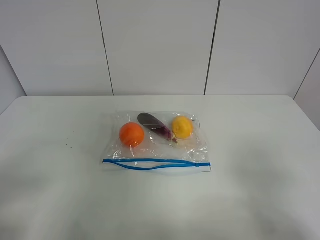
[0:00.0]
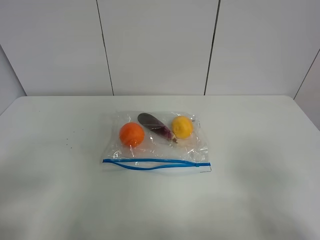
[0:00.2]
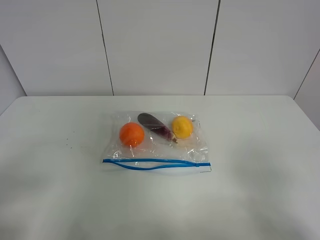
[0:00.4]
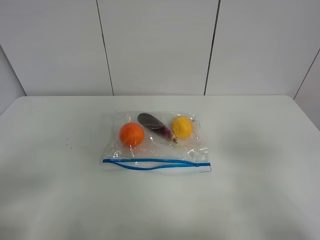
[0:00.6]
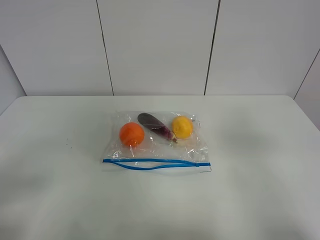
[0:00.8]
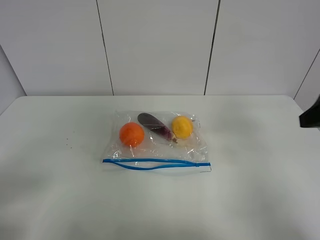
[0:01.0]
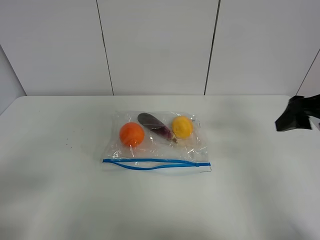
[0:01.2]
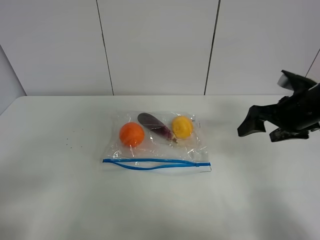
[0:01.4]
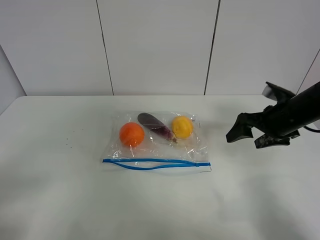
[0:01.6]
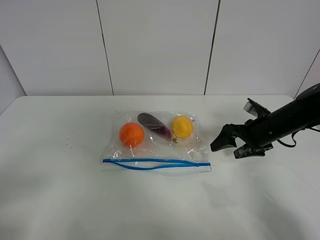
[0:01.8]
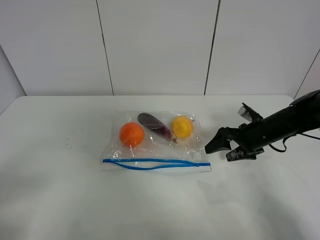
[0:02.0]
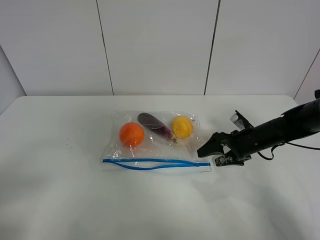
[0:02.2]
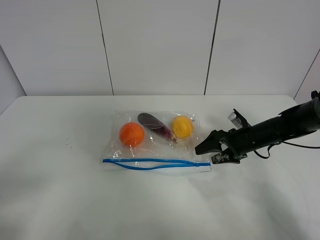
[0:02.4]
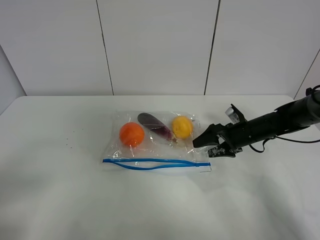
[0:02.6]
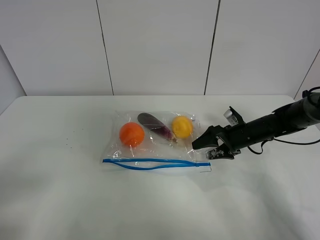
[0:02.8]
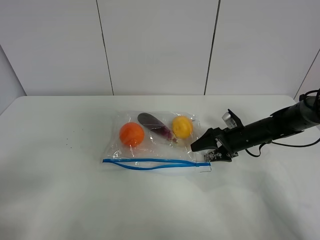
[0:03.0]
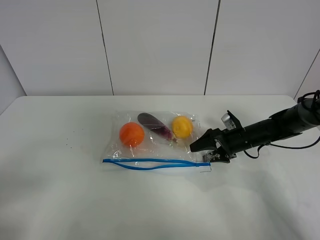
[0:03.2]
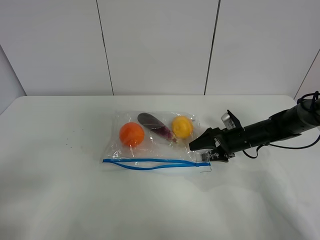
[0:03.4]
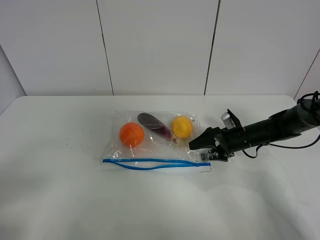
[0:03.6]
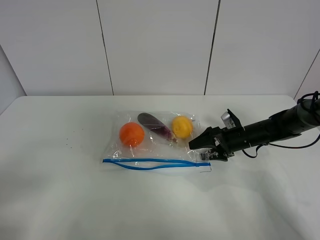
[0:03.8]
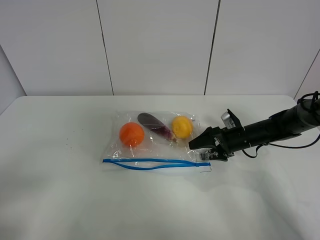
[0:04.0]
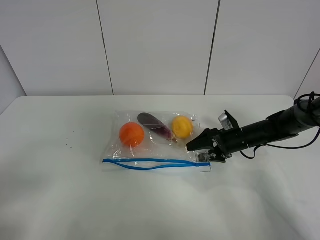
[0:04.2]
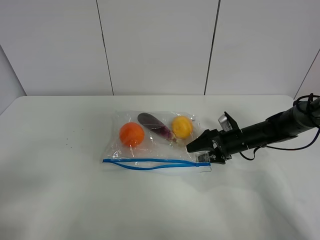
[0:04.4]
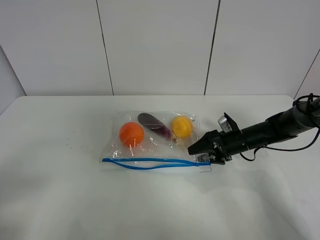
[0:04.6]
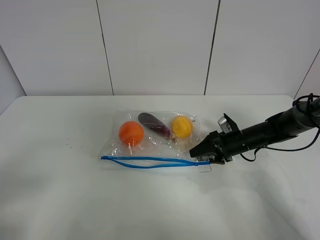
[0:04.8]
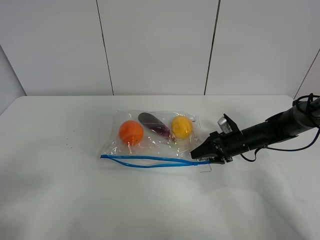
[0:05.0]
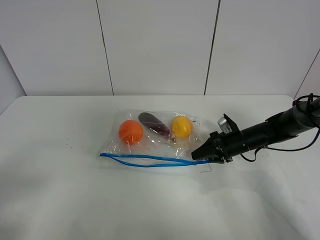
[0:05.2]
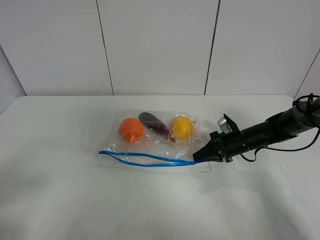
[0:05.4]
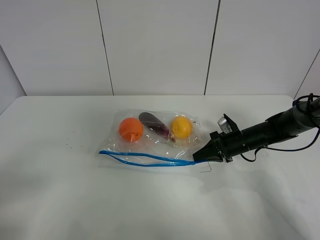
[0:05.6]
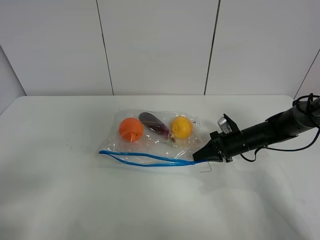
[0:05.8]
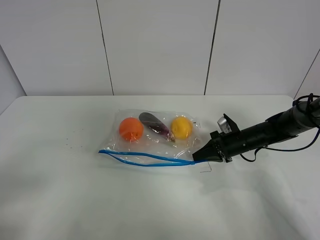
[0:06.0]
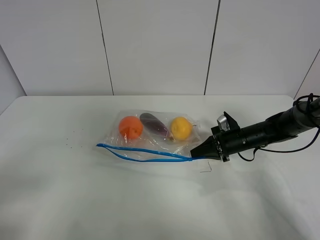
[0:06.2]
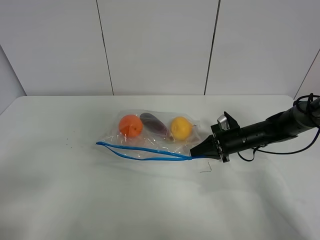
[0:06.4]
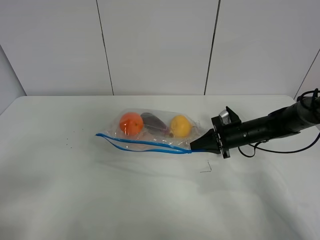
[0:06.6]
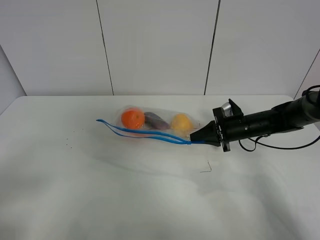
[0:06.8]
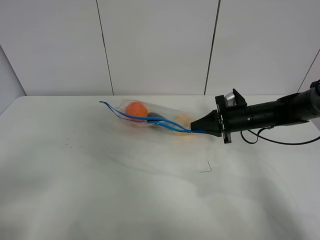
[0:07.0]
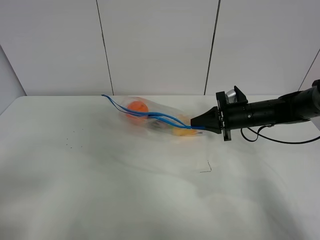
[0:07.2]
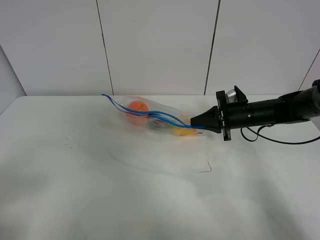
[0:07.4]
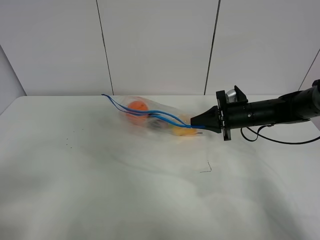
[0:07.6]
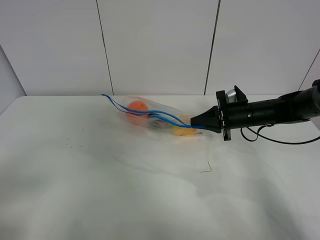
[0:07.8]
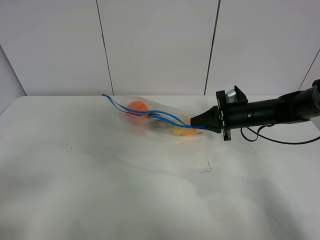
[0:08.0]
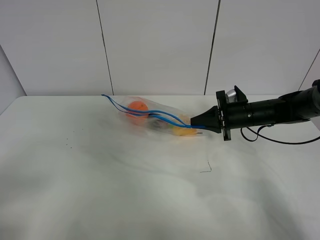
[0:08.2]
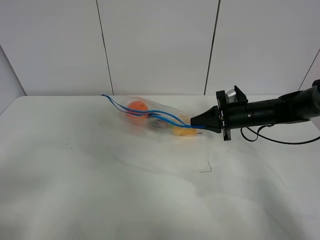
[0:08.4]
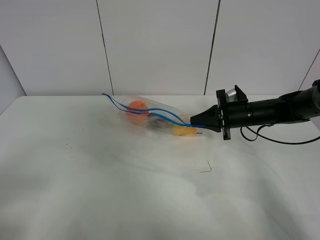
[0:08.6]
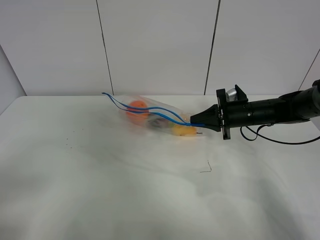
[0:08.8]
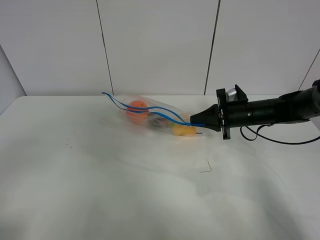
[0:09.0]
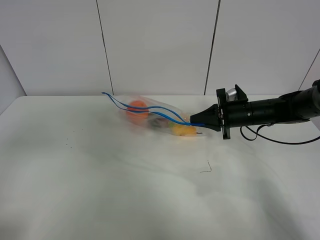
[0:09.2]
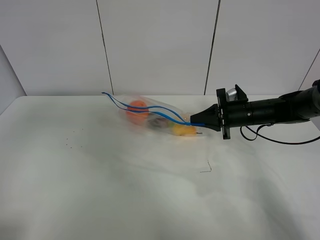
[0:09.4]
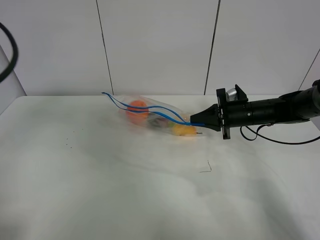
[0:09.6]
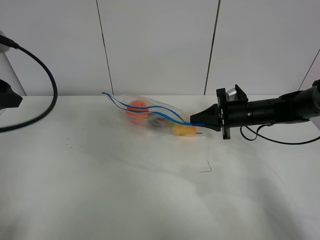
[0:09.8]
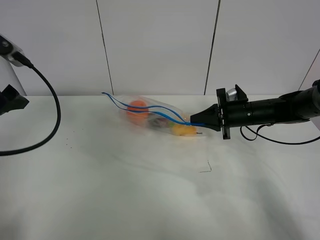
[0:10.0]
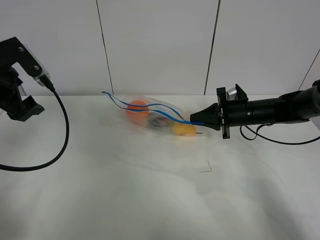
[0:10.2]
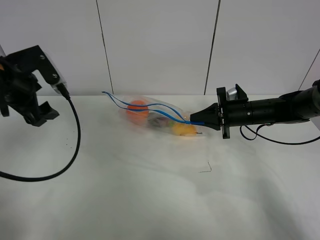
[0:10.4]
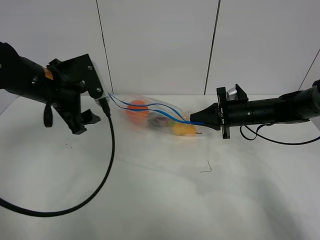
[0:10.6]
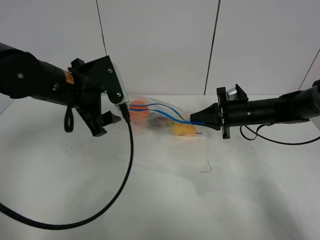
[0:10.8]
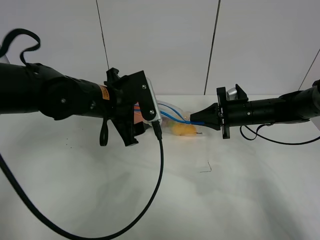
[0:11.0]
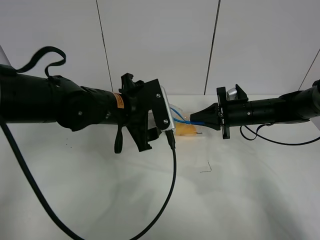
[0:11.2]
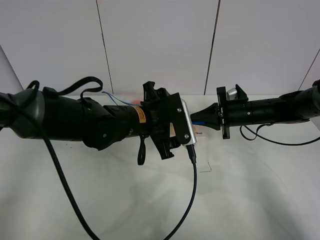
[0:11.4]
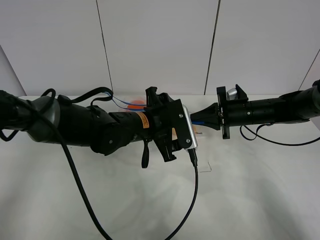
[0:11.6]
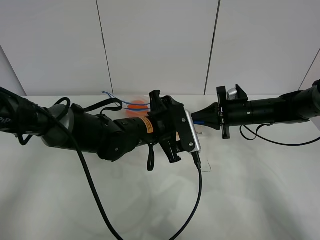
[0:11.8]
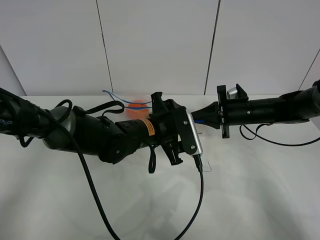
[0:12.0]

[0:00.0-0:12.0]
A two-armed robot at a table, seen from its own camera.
Step, 0:00.0 to 0:05.4: Grasp the fruit bag with right gripper.
Step, 0:05.6 to 0:07.6: Lift the fruit bag with your right gripper.
0:00.0 to 0:01.6: The right gripper travels forward by approximately 30 cm.
0:01.6 to 0:03.0: The right gripper moves downward and forward, some 15 cm.
0:03.0 to 0:04.4: Neither gripper changes place.
0:04.4 to 0:06.0: The right gripper closes its fingers.
0:06.0 to 0:07.6: The right gripper is displaced upward by roughly 10 cm.
0:07.6 to 0:09.0: The left gripper shifts approximately 5 cm upward.
0:09.0 to 0:10.4: The left gripper heads forward, covering some 30 cm.
0:10.4 to 0:12.0: The left gripper travels to the right and downward by some 25 cm.

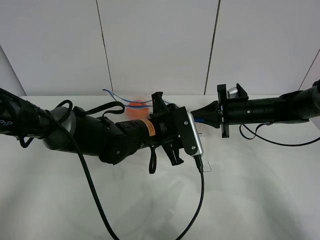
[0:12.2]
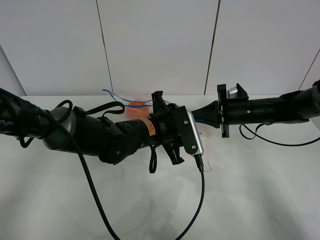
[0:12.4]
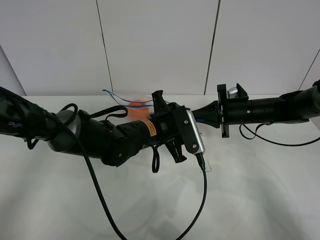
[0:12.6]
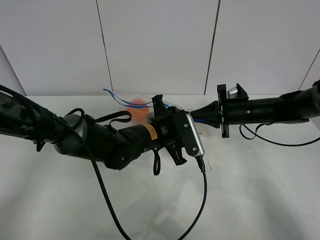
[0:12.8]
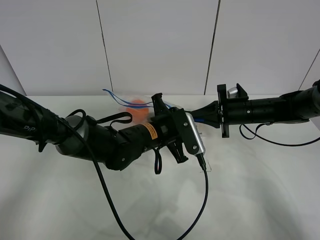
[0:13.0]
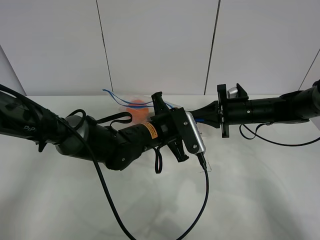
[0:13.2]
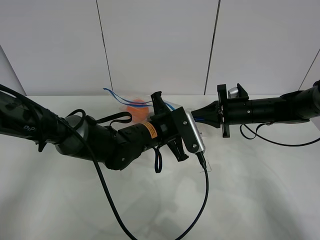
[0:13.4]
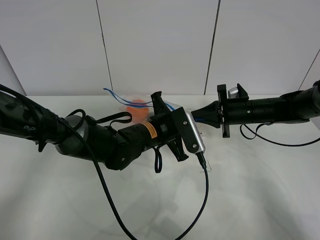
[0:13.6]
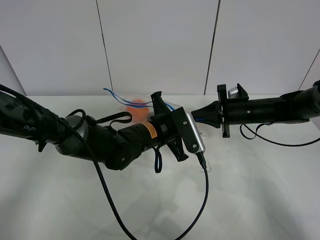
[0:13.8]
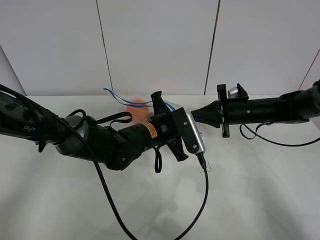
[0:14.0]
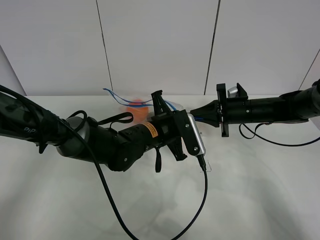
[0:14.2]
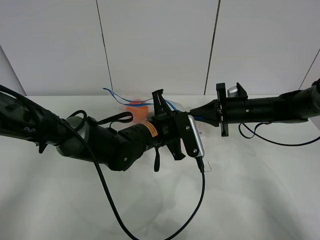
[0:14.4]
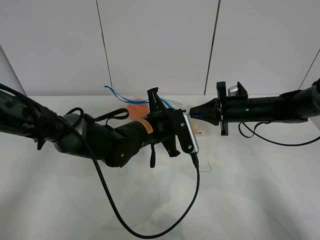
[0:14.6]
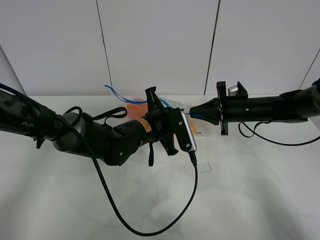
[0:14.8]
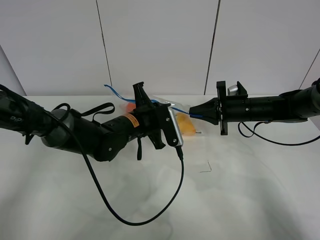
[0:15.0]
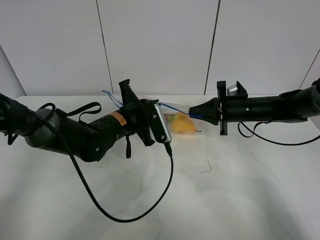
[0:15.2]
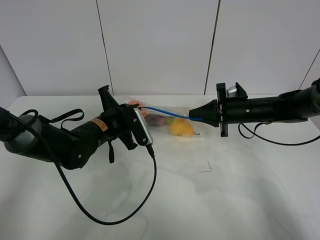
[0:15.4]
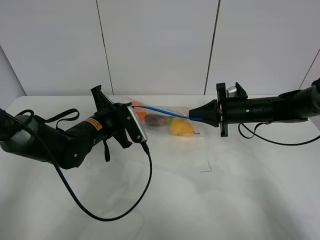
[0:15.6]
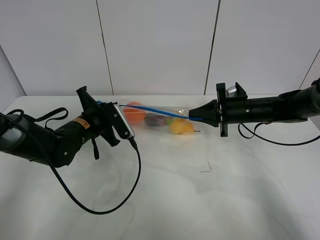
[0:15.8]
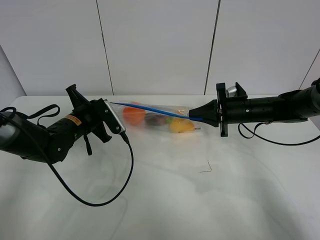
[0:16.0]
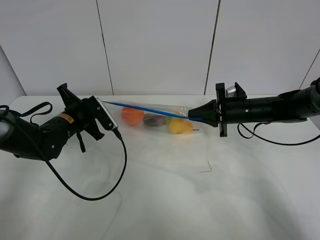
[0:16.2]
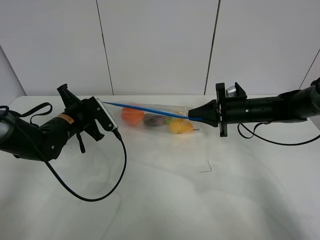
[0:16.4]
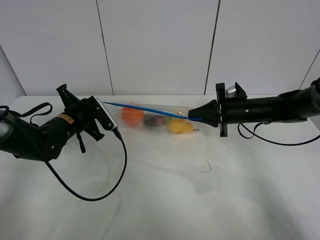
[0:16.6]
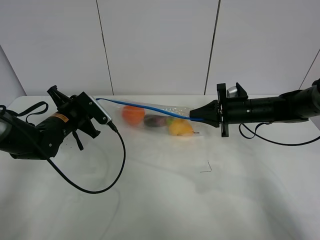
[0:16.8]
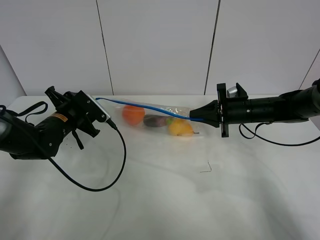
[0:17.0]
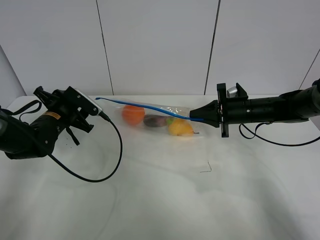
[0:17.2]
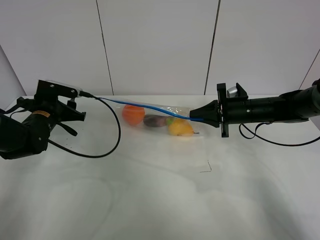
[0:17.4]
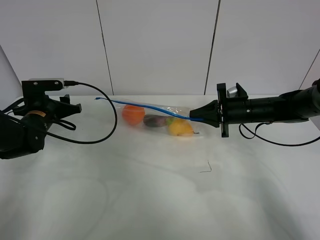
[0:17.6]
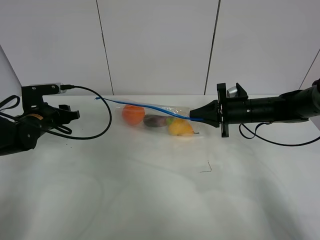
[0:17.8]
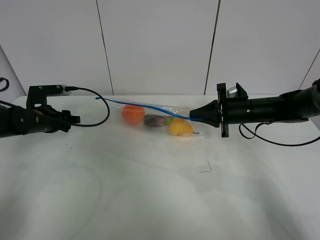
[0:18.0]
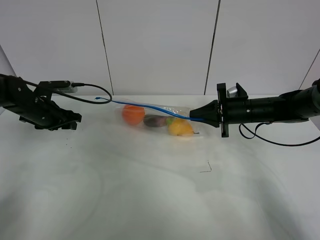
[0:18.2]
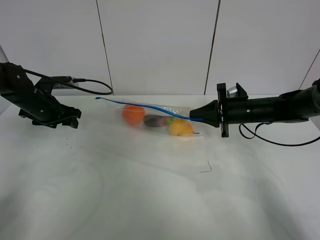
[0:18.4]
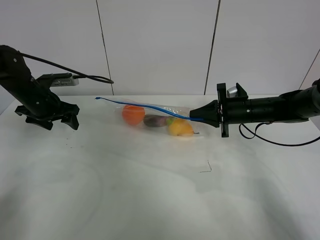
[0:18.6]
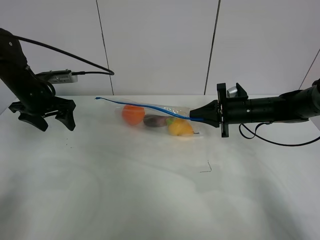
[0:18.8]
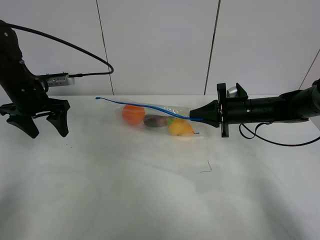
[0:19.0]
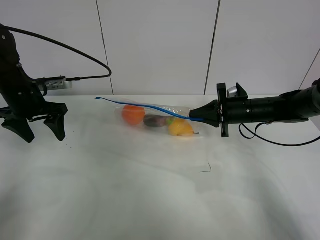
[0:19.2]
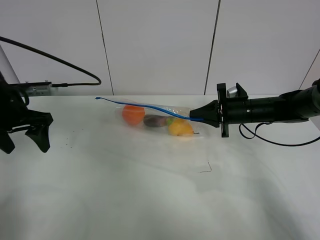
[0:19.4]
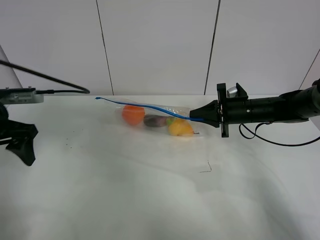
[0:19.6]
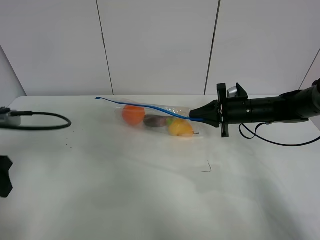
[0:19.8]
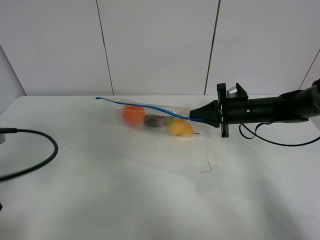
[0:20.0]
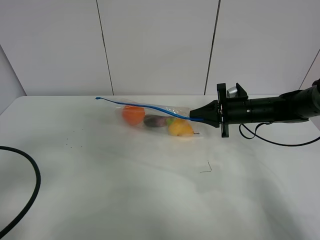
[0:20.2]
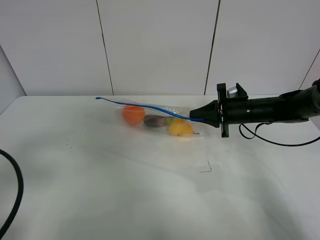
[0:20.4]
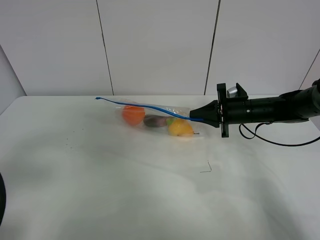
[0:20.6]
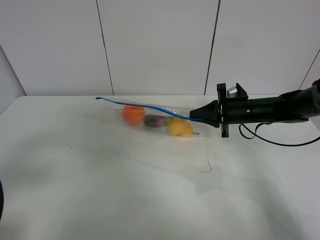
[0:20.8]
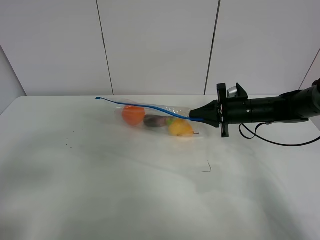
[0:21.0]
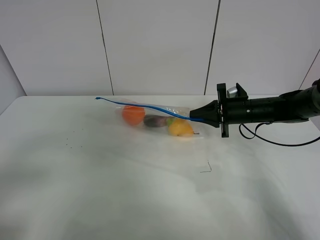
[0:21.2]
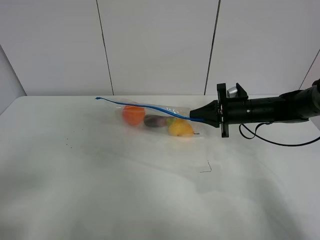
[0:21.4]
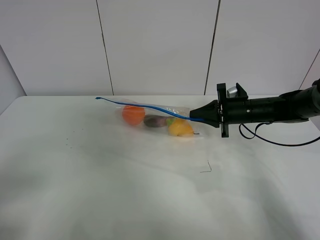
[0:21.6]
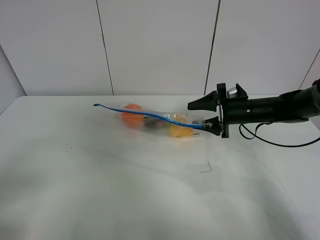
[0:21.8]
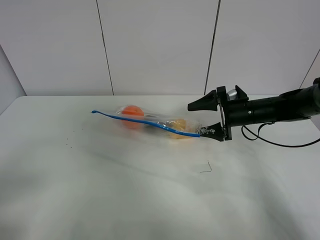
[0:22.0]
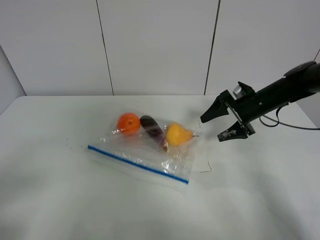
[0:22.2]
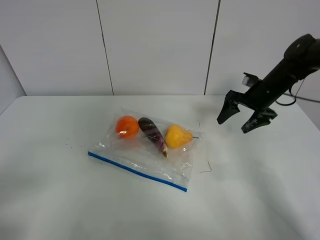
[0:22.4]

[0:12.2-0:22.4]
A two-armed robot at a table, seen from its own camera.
Step, 0:12.2 to 0:17.0: Pull the fruit bag with left gripper.
0:12.2 to 0:13.6: The left gripper closes its fingers.
0:13.6 to 0:15.2: The left gripper travels to the left by roughly 10 cm.
0:15.2 to 0:16.6: The left gripper moves to the left, some 10 cm.
0:16.6 to 0:18.0: The left gripper heads to the left, covering roughly 10 cm, and opens.
0:18.0 to 0:19.4: The left gripper shifts approximately 15 cm upward and backward.
0:19.4 to 0:21.0: The left gripper goes some 25 cm backward.
0:21.0 to 0:22.4: The right gripper shifts some 5 cm to the right, and opens its fingers.
